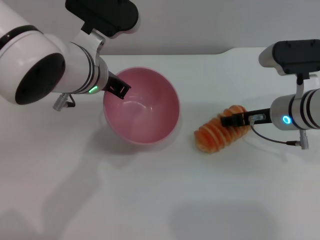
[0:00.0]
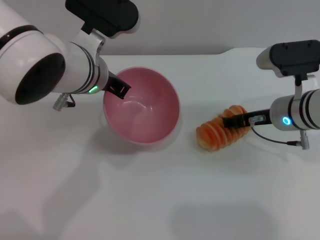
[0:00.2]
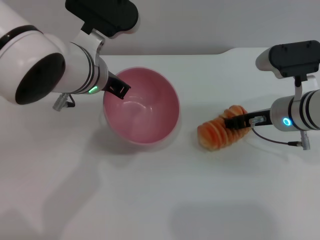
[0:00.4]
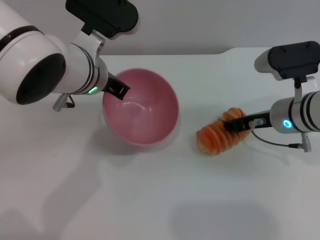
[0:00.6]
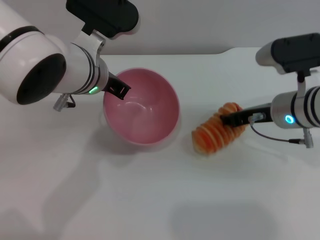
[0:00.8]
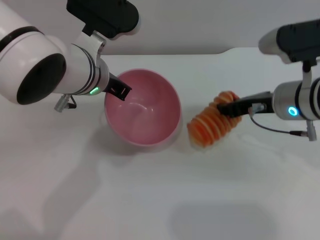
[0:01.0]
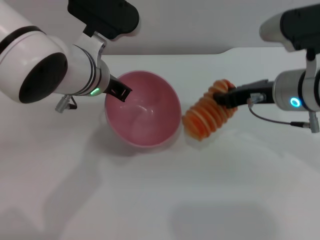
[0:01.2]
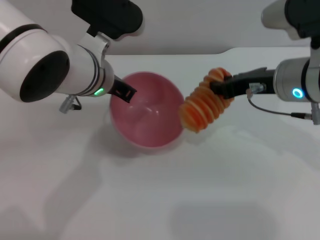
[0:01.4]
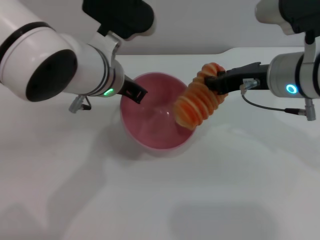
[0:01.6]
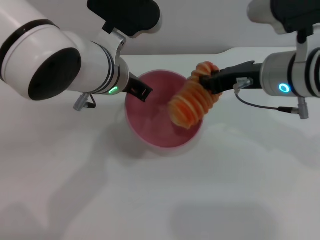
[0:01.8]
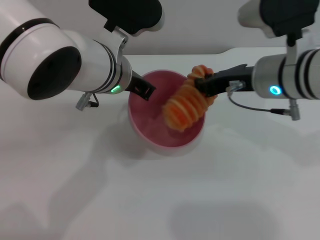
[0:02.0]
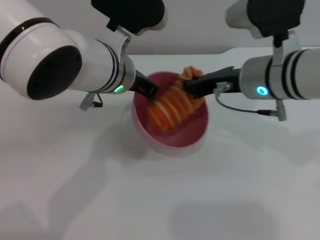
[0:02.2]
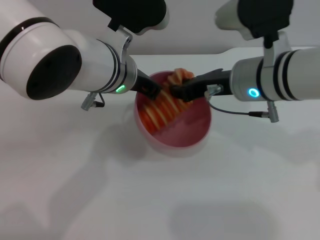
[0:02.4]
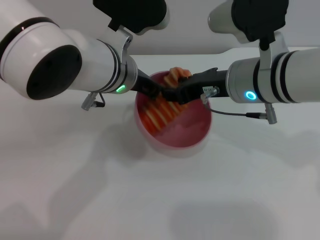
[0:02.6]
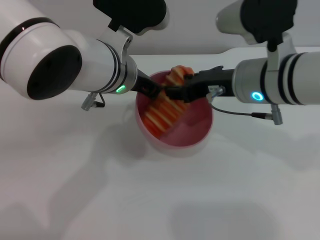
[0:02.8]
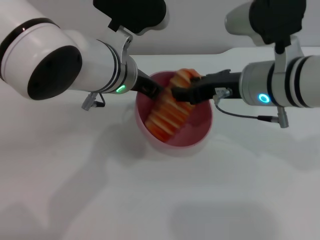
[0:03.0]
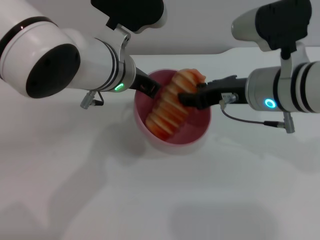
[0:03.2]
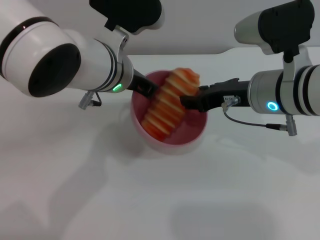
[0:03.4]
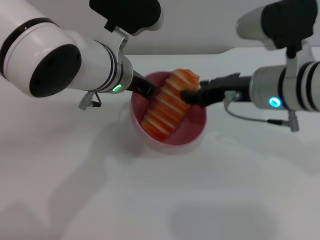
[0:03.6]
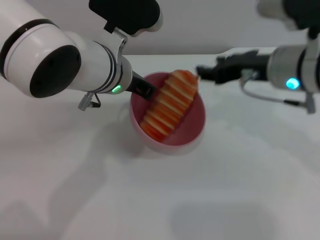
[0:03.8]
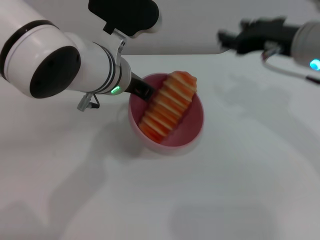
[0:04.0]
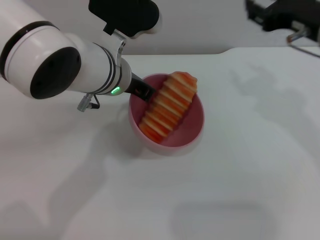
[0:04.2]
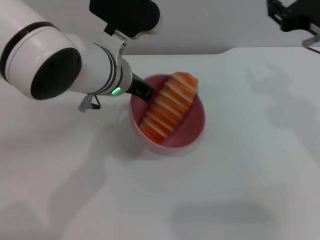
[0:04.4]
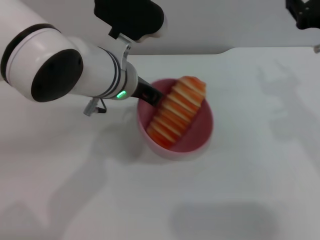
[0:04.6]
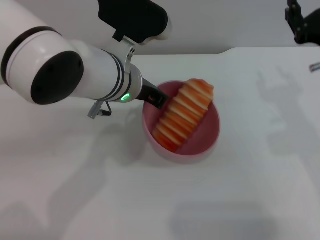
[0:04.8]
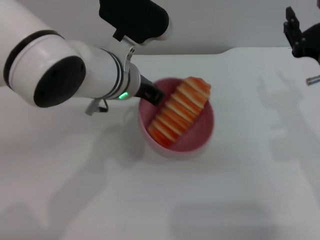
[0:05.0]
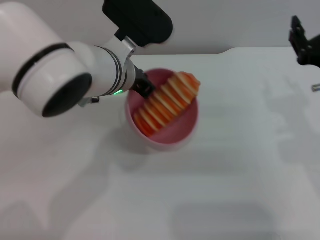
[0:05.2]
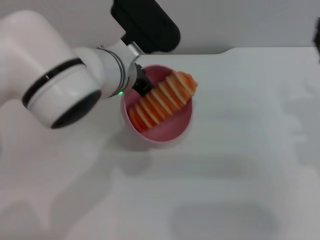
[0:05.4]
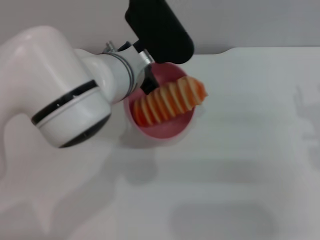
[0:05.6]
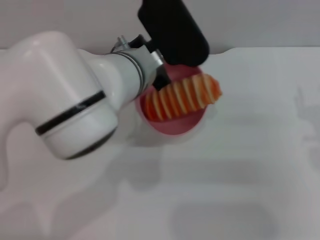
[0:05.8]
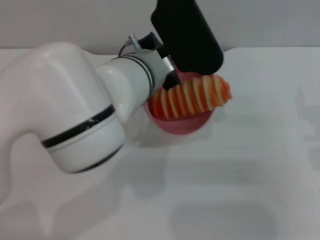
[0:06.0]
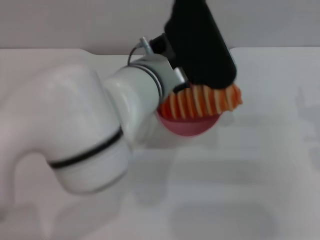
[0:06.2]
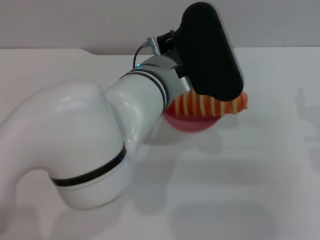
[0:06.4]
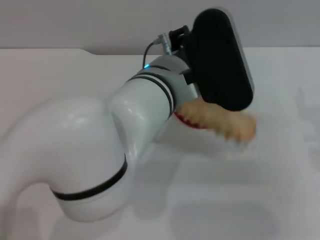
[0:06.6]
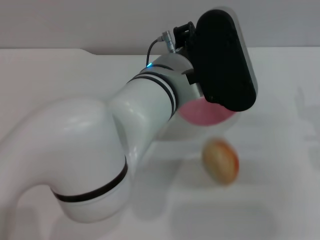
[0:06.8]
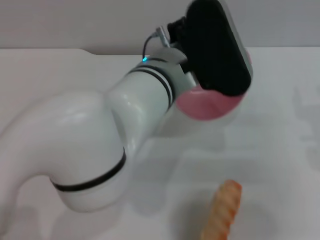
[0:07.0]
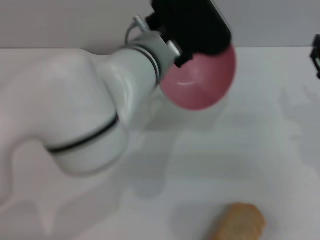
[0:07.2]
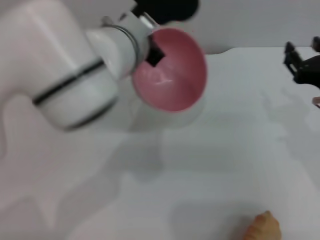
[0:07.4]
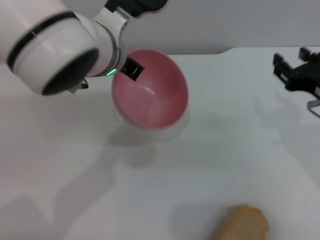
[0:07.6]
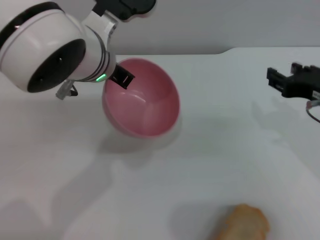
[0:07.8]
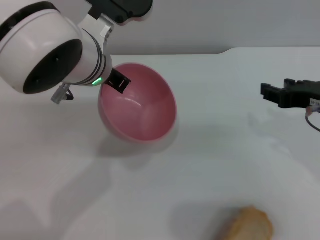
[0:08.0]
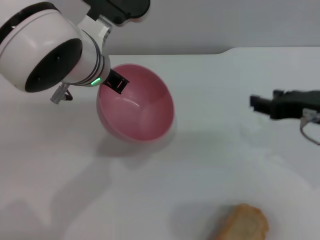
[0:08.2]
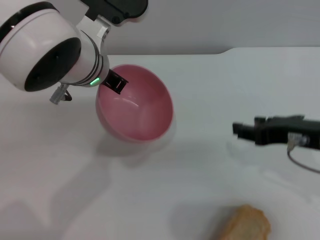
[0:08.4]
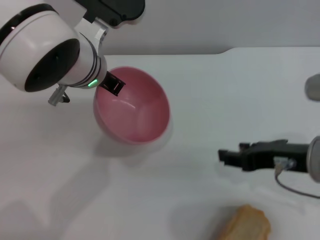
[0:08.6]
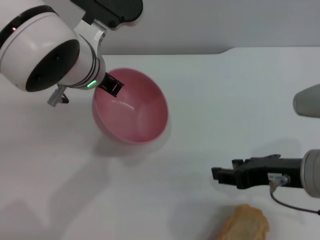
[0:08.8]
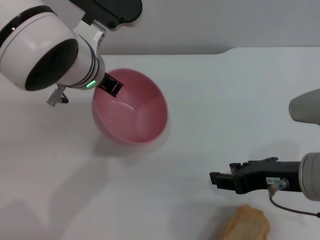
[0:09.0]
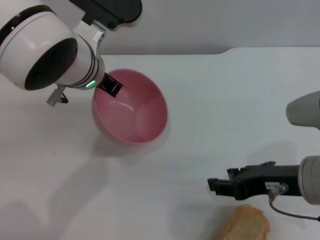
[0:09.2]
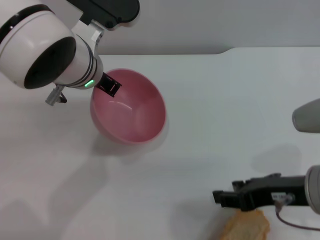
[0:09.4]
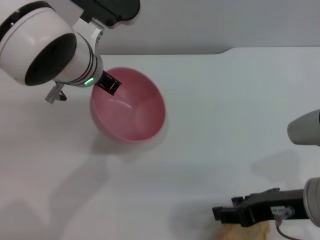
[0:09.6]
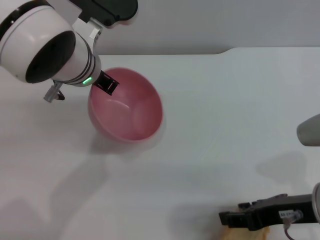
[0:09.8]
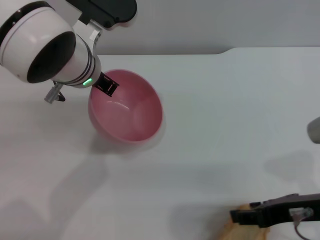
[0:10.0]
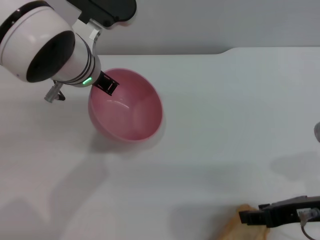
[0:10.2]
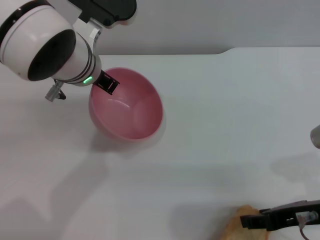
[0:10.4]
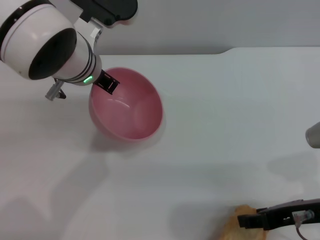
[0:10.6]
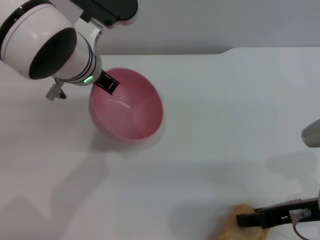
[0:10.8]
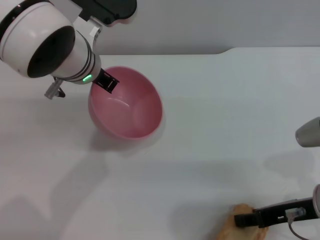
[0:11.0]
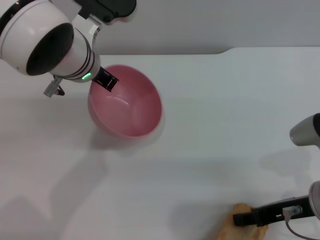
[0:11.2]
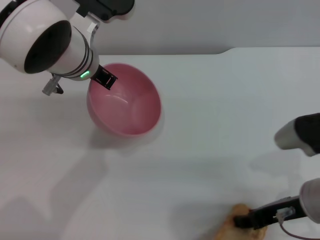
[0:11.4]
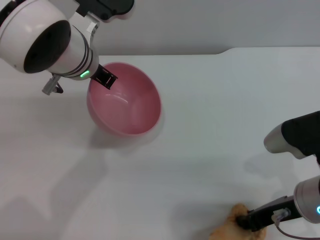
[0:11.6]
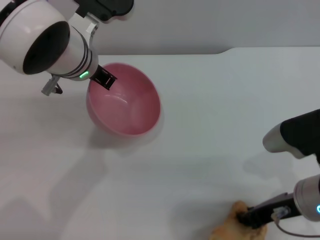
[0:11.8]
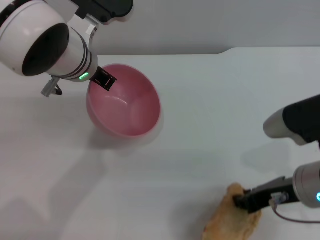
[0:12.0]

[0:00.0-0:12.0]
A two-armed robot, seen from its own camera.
Task of the whole recording: put the bread into the pink bowl and pour it out repeatedly.
Step, 0:01.4 to 0:03.6: Place the bread into the bowl.
Step, 0:03.8 to 0:07.2: Pour the bread out of the bowl.
0:00.0 to 0:01.6: The right gripper shifts some 10 cm upward, and closes.
0:01.6 to 0:03.0: The right gripper opens.
0:03.0 to 0:04.4: The right gripper goes about 10 cm to the right.
0:04.4 to 0:06.0: The left gripper ends up roughly 5 cm from where it was. Meanwhile the right gripper travels downward and backward by roughly 10 cm.
0:07.6 to 0:09.0: The right gripper ends up roughly 5 cm from where it was.
0:09.0 to 0:10.4: The grippers move only a little.
0:10.4 to 0:12.0: The right gripper closes up.

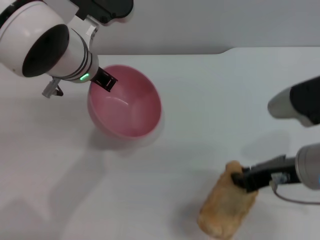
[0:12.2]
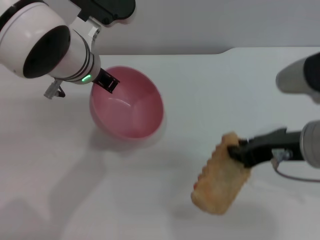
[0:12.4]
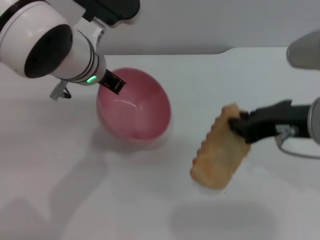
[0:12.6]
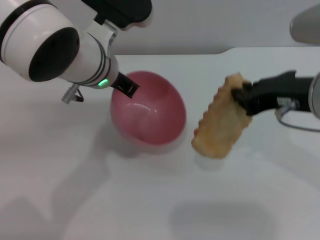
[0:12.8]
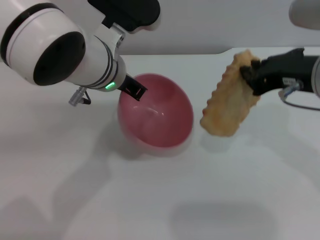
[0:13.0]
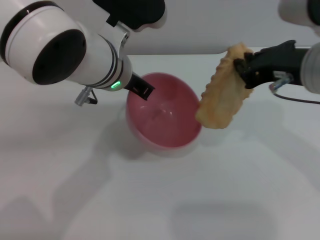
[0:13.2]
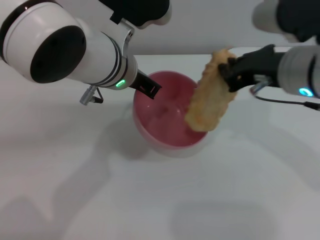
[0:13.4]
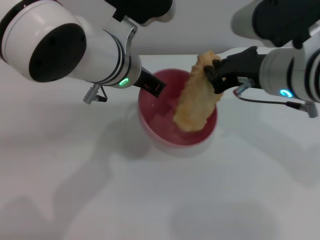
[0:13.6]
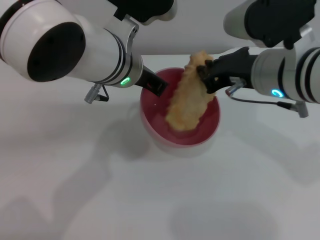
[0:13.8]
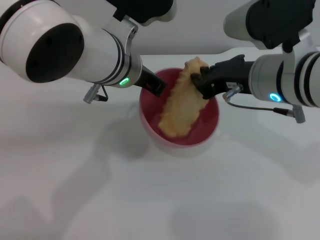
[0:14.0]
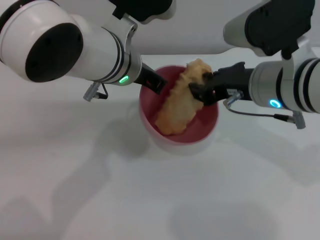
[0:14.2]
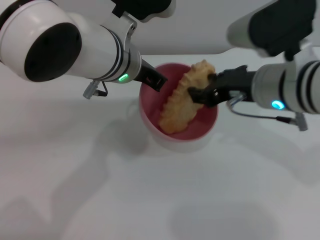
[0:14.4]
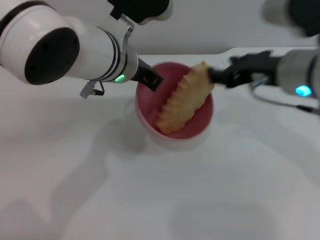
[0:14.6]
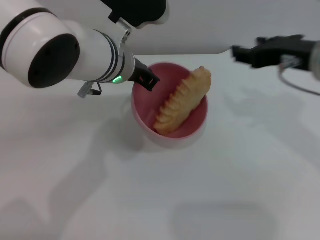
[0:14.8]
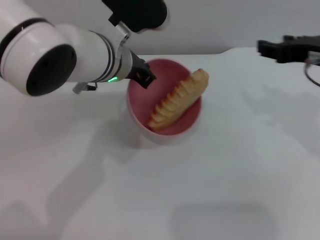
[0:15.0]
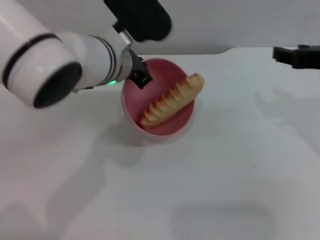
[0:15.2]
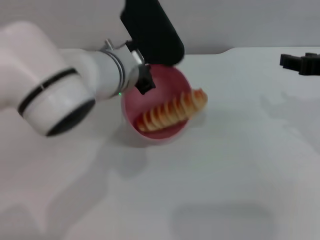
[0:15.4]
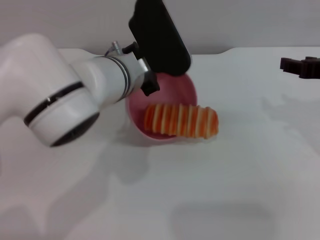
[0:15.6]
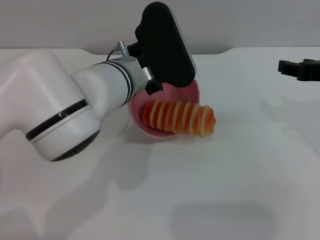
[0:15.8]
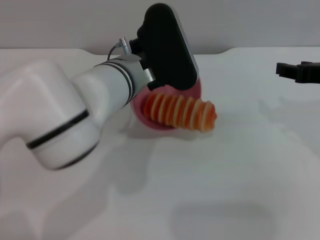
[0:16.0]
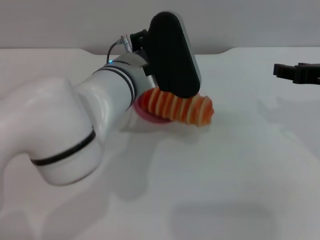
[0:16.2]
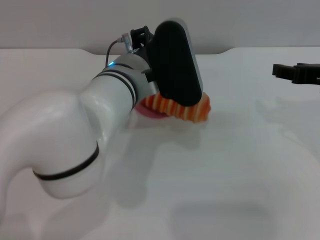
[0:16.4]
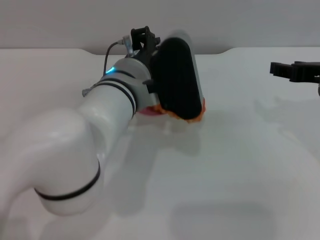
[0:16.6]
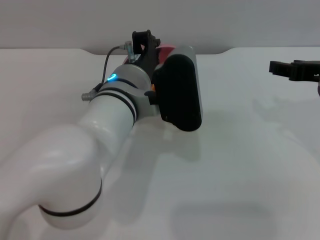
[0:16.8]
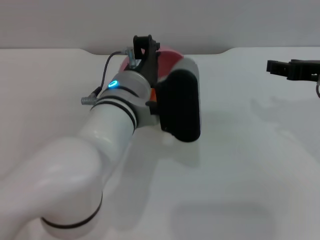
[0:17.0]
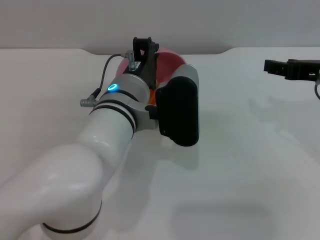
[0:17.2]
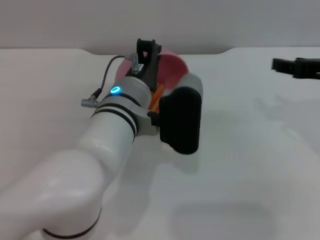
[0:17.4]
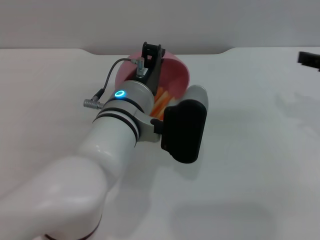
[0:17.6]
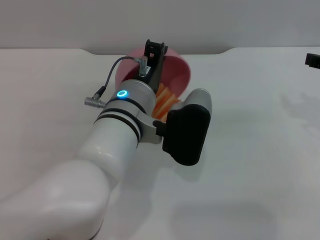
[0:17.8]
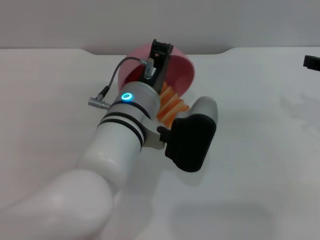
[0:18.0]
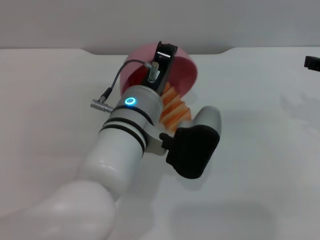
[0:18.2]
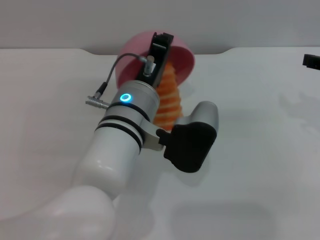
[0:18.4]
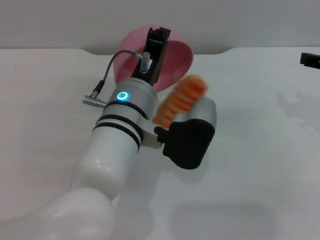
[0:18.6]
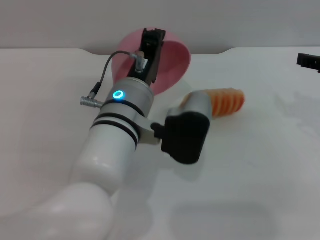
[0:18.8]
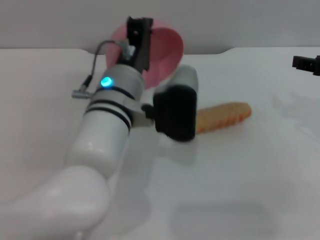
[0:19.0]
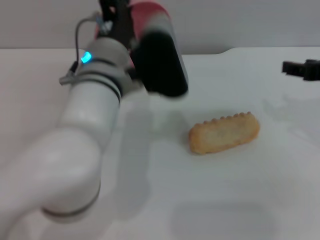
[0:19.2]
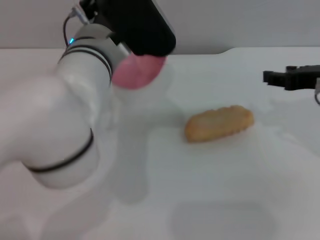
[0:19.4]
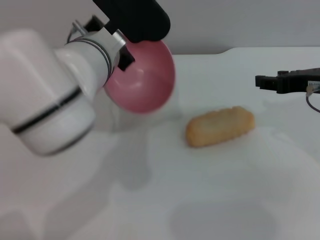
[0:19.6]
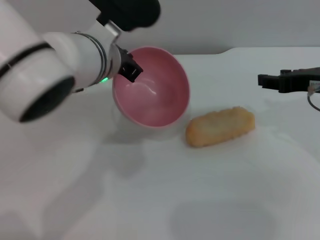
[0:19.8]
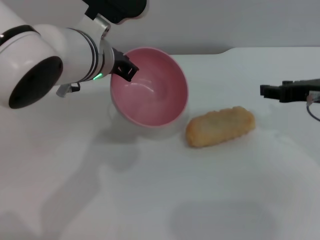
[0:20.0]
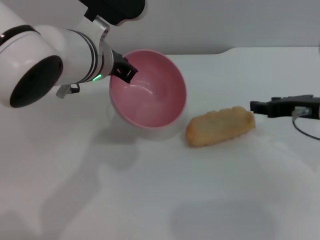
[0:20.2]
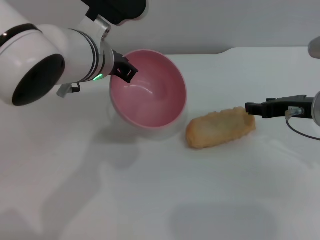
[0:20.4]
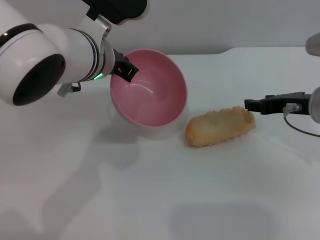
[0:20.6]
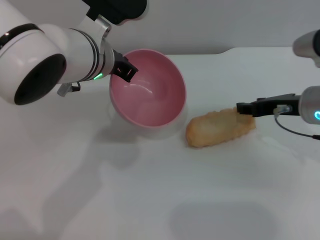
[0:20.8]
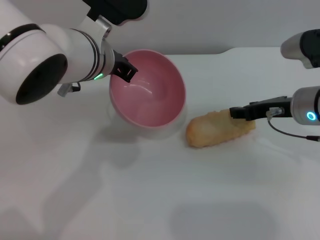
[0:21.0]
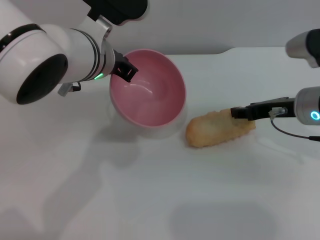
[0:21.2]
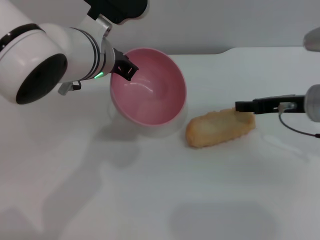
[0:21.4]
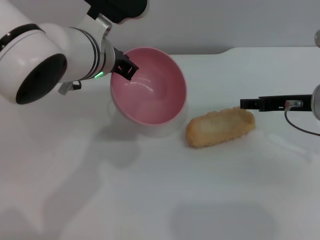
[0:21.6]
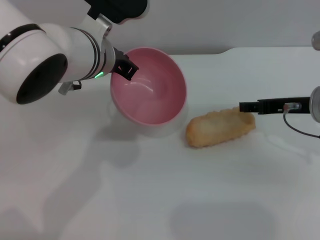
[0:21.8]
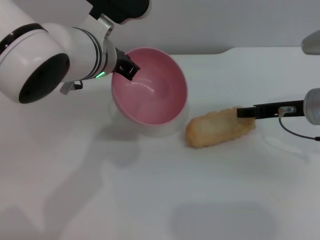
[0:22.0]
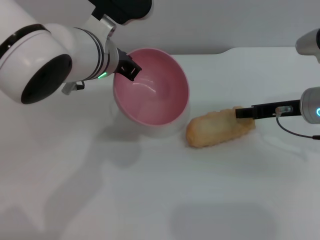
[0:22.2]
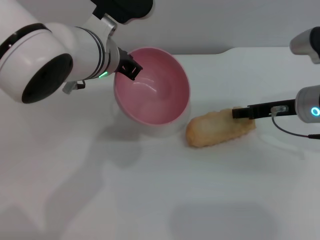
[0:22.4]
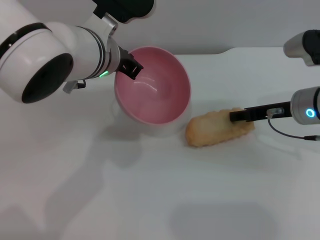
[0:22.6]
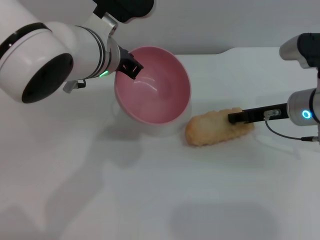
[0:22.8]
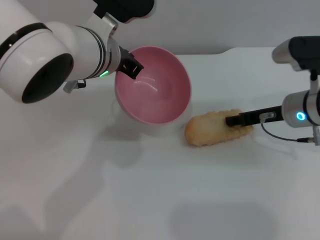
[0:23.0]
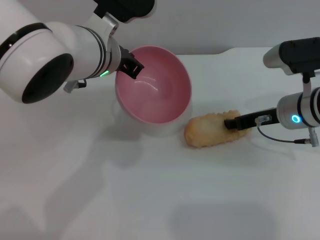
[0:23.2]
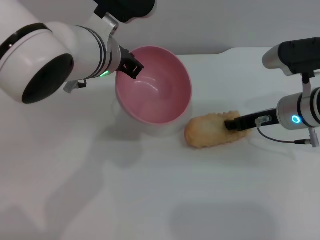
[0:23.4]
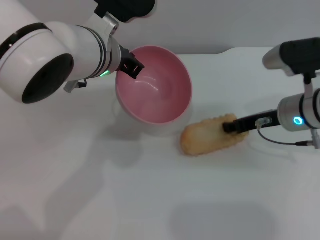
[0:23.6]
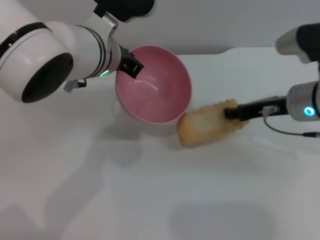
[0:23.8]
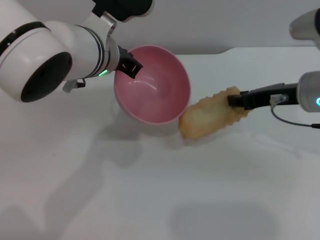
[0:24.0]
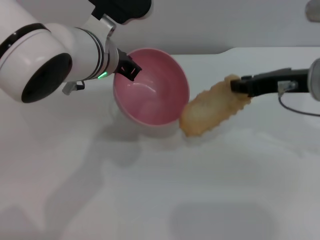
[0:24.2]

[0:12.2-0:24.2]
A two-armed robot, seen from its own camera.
Task of the whole recording: put the bread into the pink bowl and pour it out repeatedly.
Step, 0:12.6 to 0:14.6: Place the bread into the bowl.
Step, 0:14.8 to 0:19.2: Pour the bread out of the bowl.
0:12.2 to 0:13.8: The right gripper goes some 10 cm forward and to the left.
0:13.8 to 0:15.2: The right gripper goes approximately 10 cm to the right, and opens.
0:15.2 to 0:16.6: The left gripper moves about 5 cm.
0:18.2 to 0:19.8: The left gripper is displaced upward and forward by some 10 cm. Meanwhile the right gripper shifts by roughly 5 cm.
0:19.8 to 0:21.2: The right gripper travels downward by approximately 5 cm.
0:21.2 to 0:22.6: The grippers move only a little.
0:22.6 to 0:24.2: The right gripper heads upward, covering roughly 10 cm.
